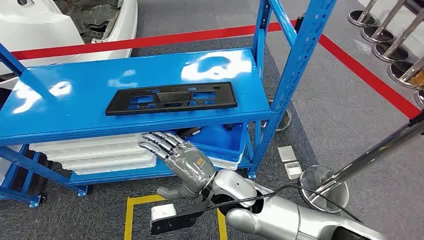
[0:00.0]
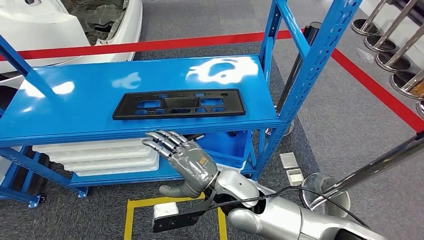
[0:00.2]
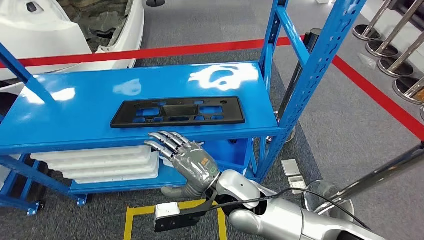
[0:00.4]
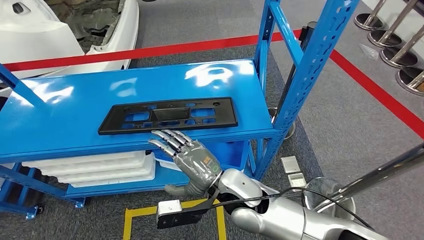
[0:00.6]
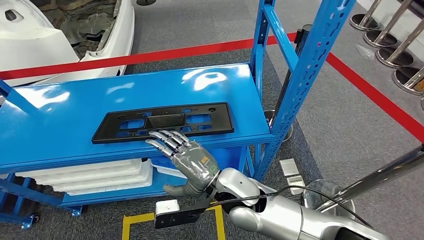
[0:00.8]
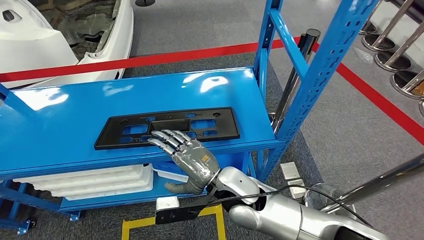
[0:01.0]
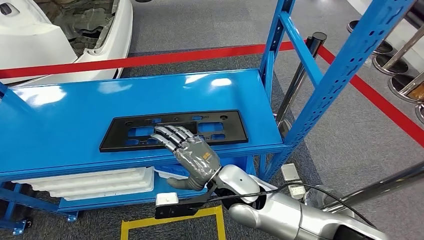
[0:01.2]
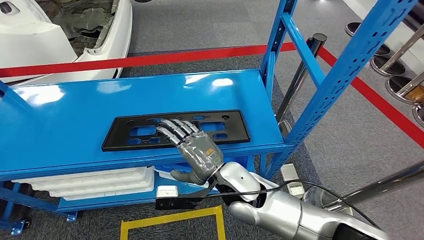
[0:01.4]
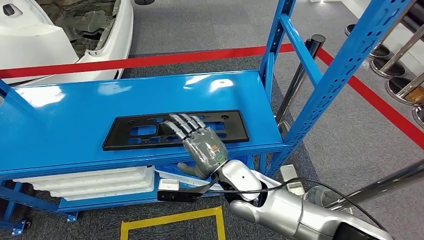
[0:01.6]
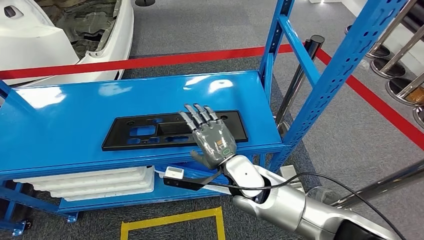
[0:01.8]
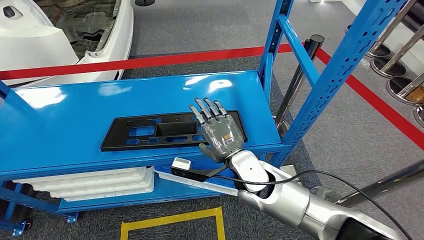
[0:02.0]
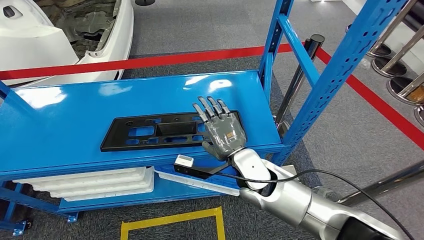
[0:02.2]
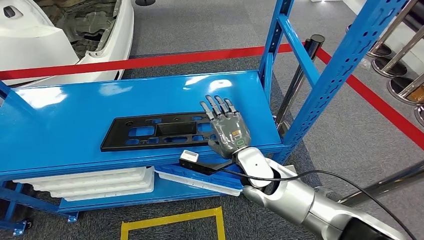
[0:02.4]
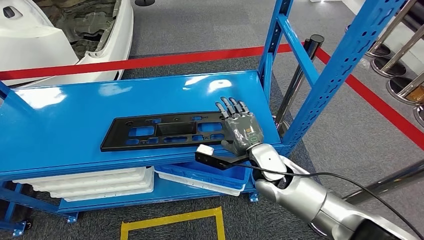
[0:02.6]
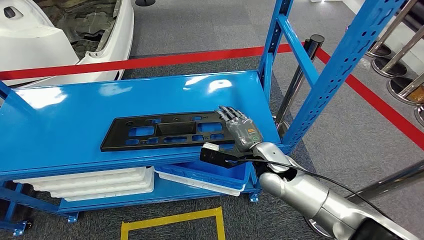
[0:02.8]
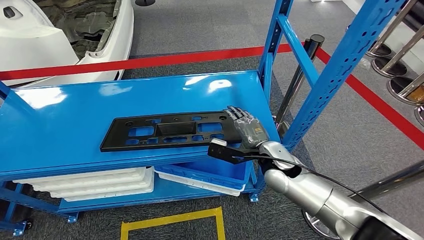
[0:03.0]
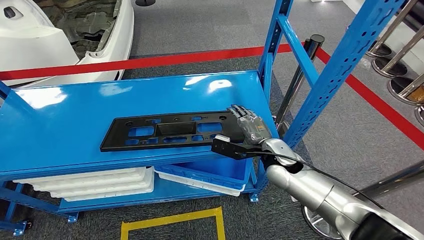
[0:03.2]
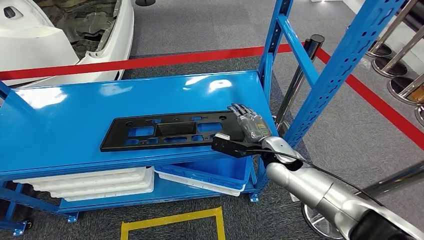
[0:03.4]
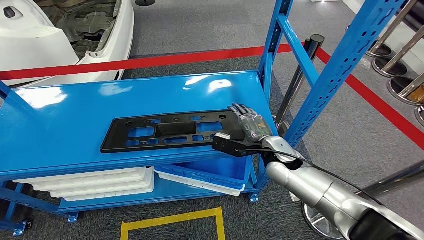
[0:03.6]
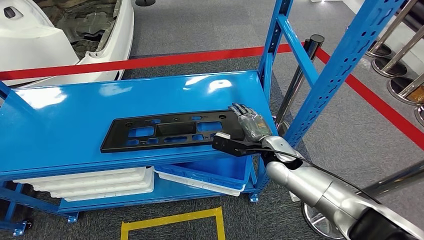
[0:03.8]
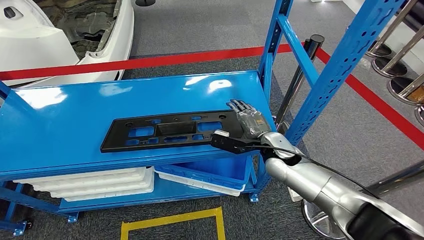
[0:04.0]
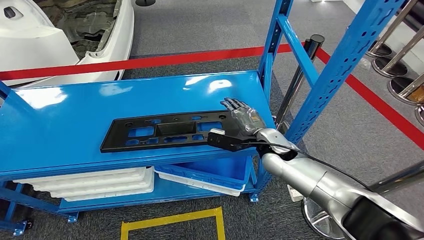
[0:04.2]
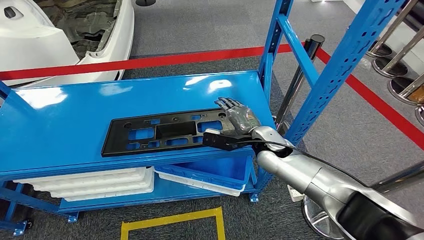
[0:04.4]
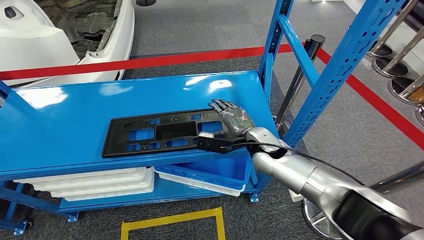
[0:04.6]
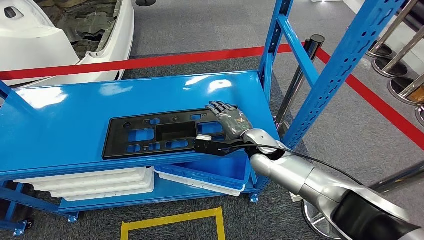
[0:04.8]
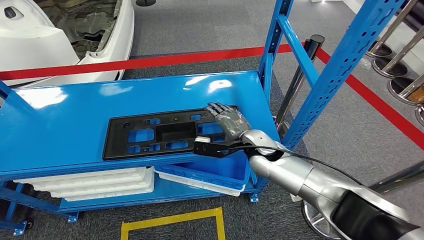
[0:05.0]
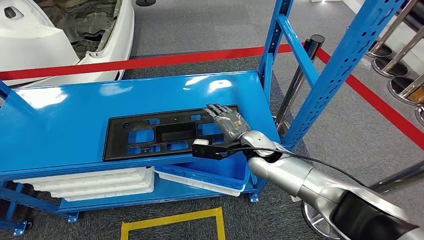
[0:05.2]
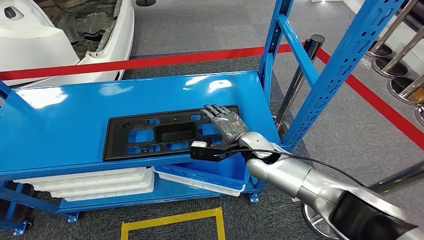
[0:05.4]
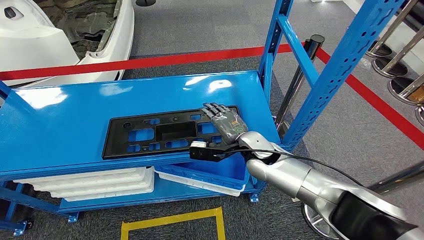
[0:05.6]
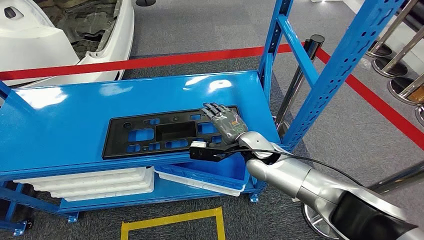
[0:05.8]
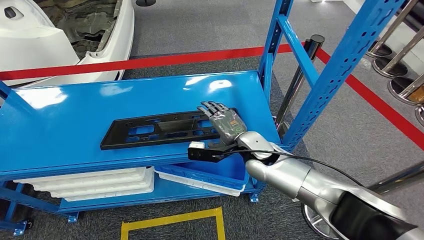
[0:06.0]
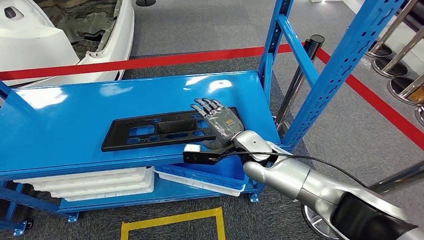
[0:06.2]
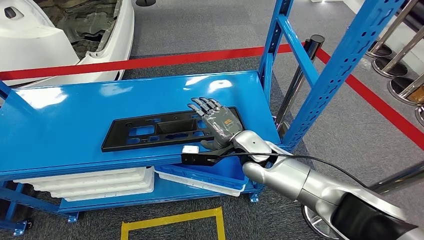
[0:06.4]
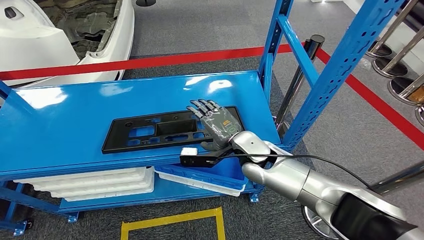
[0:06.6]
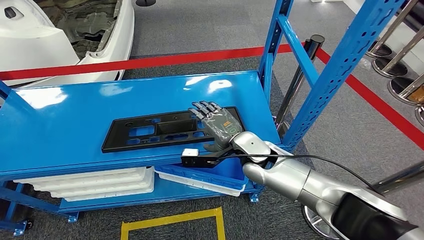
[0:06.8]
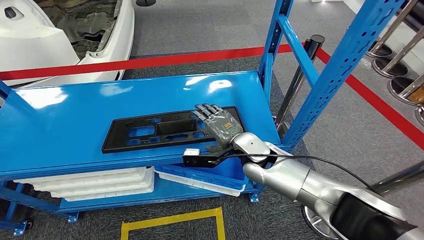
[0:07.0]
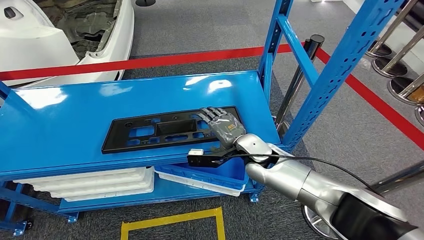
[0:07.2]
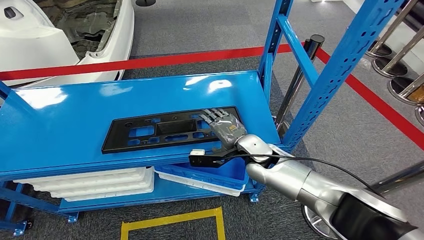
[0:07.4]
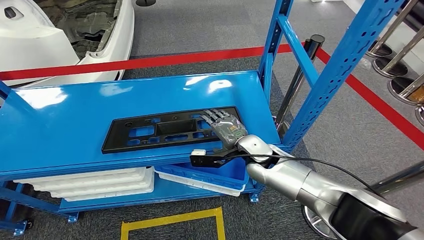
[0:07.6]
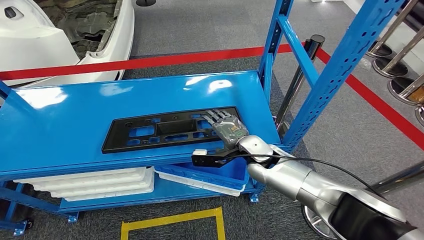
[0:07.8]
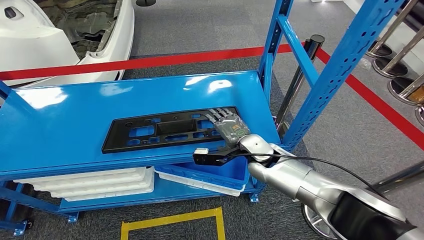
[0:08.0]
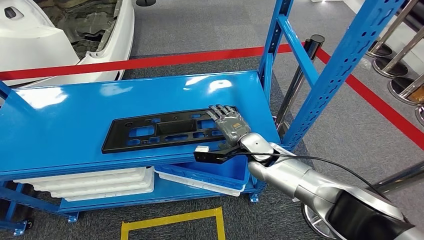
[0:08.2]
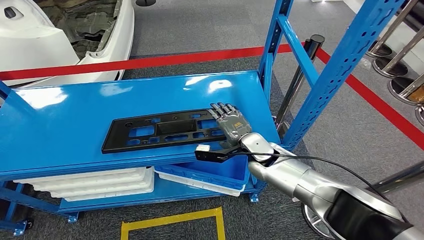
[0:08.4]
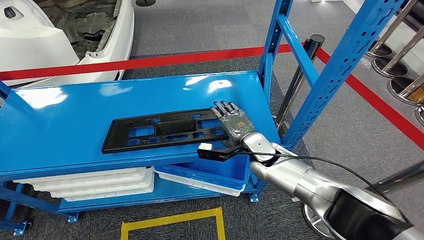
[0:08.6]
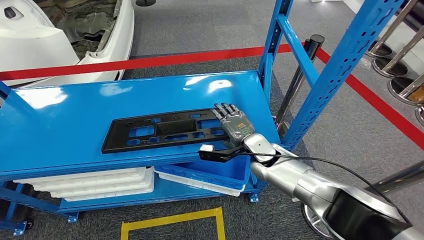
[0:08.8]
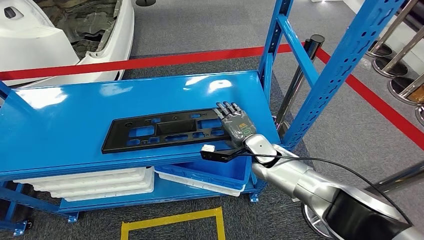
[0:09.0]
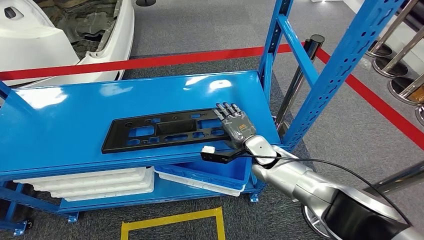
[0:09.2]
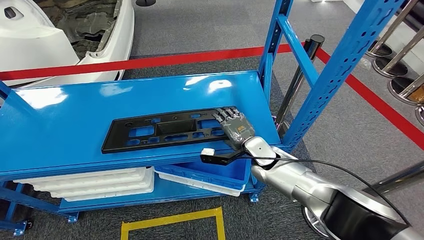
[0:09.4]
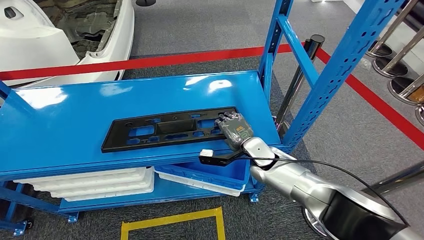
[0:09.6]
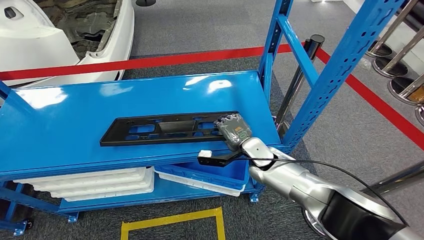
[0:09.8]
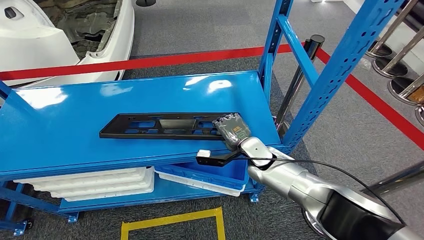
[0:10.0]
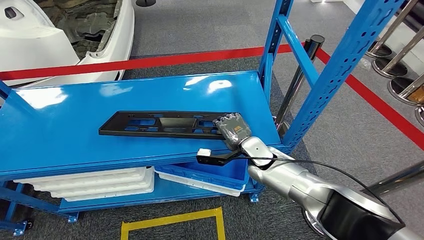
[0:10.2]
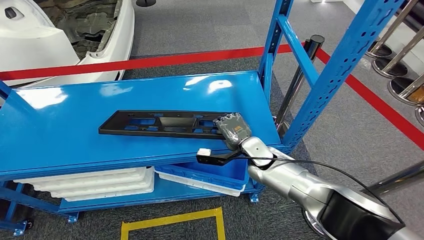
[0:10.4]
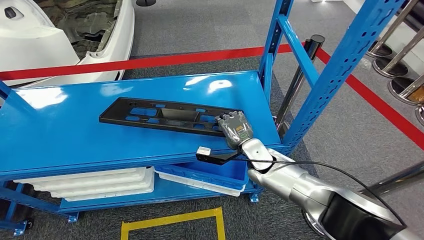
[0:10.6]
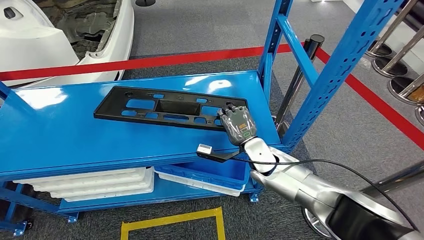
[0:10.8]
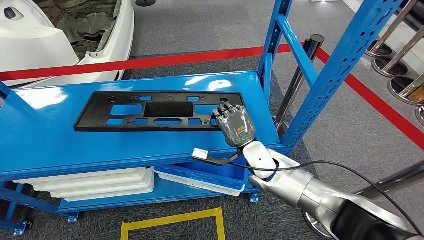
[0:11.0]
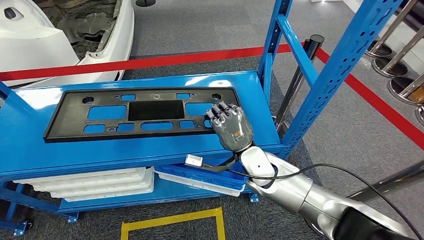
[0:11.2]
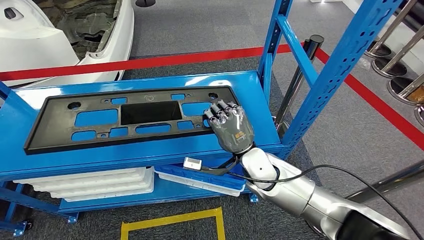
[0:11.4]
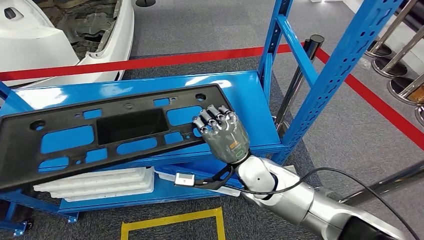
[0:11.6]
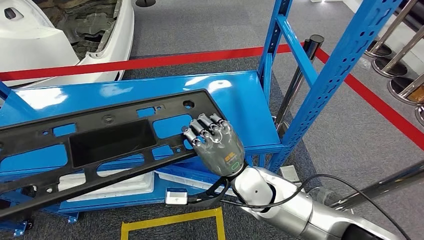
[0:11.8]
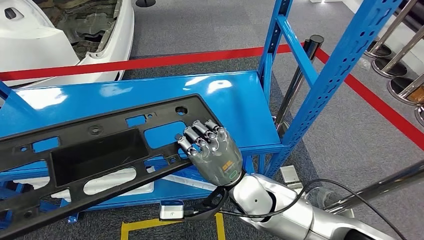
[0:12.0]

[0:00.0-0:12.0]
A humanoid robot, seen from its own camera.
0:03.0 to 0:06.0: The hands make only small movements.
0:06.0 to 0:09.0: The hands make only small movements.
0:09.0 to 0:10.4: The hands stay close to where they were, moving slightly.

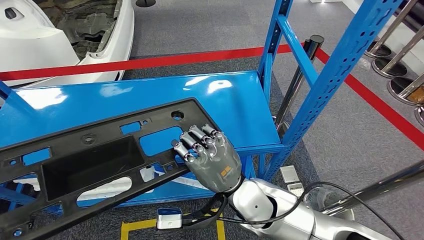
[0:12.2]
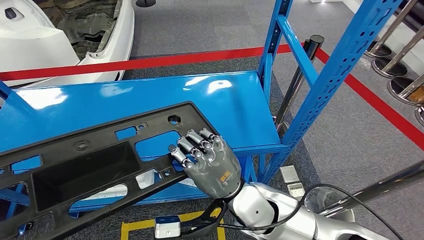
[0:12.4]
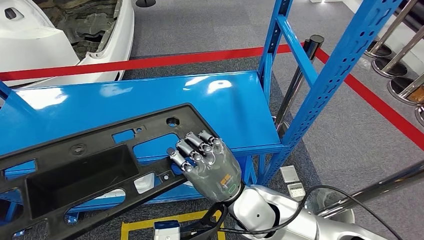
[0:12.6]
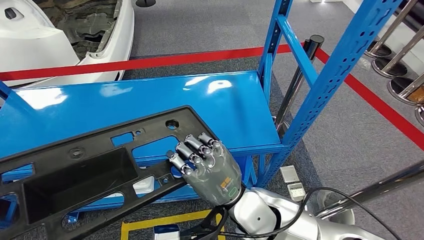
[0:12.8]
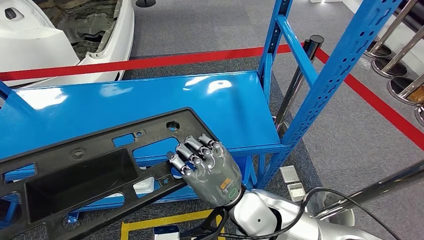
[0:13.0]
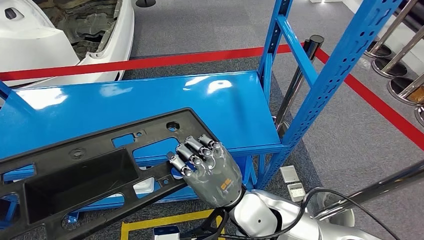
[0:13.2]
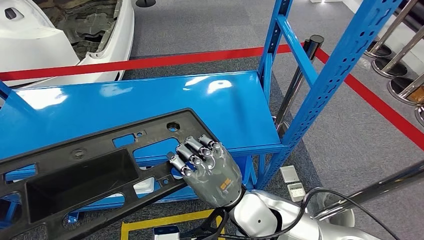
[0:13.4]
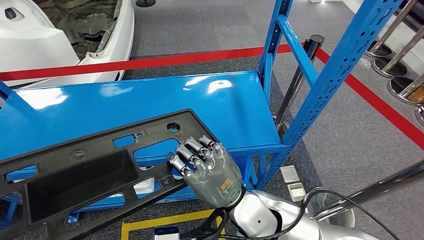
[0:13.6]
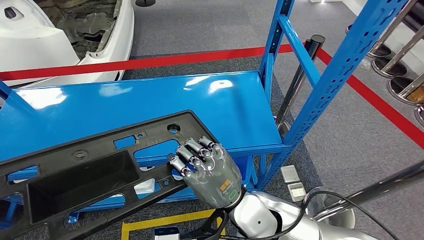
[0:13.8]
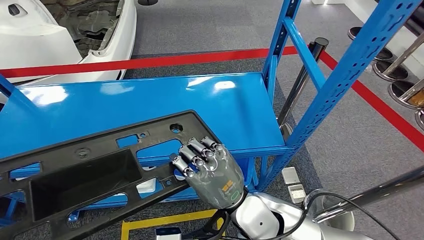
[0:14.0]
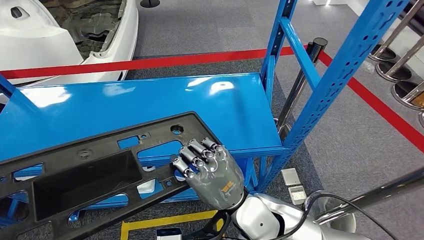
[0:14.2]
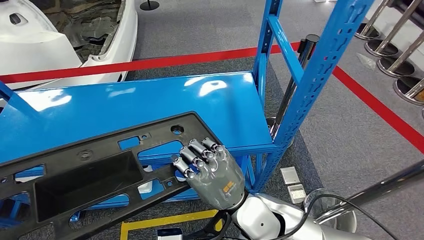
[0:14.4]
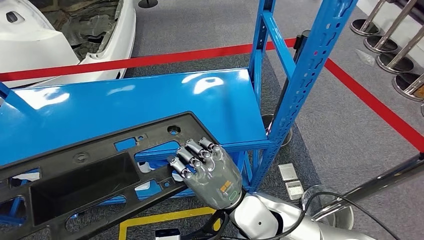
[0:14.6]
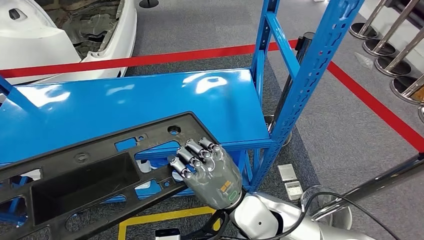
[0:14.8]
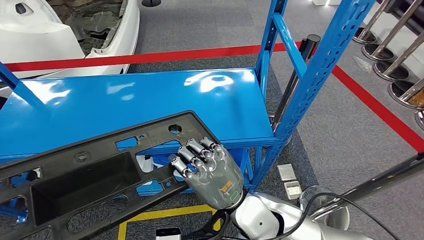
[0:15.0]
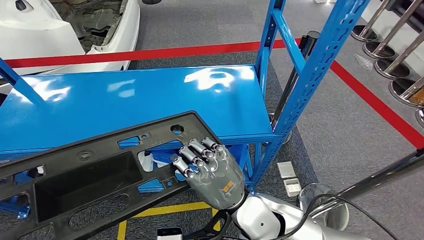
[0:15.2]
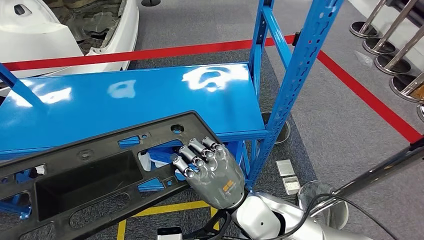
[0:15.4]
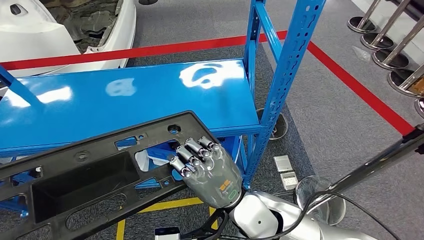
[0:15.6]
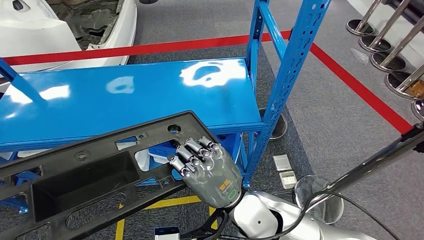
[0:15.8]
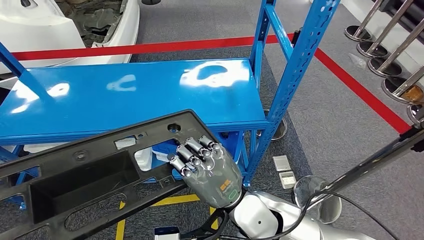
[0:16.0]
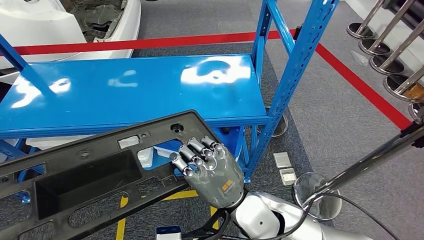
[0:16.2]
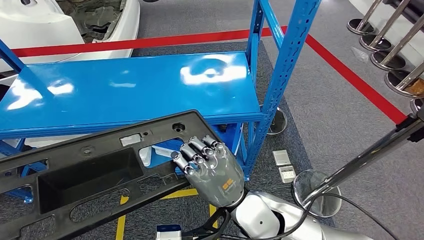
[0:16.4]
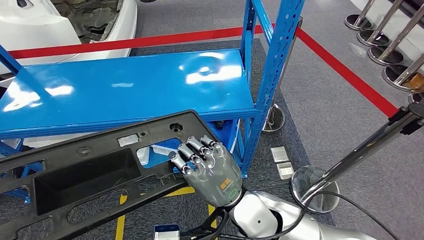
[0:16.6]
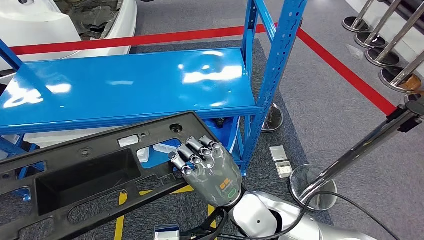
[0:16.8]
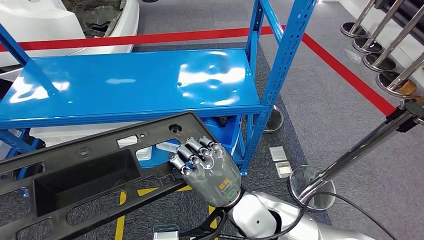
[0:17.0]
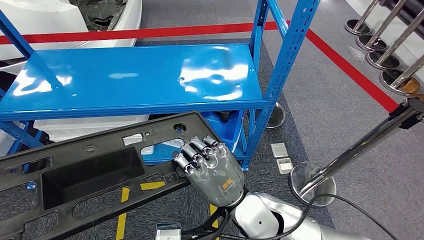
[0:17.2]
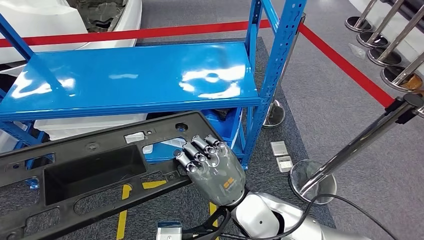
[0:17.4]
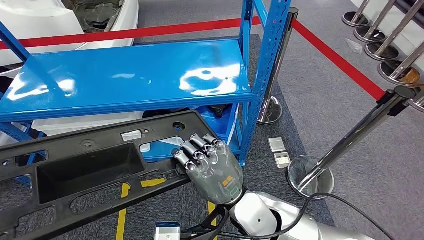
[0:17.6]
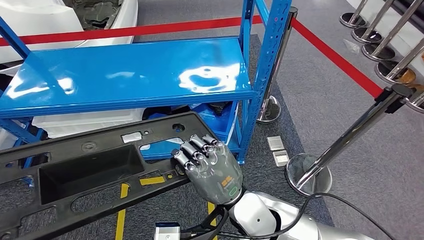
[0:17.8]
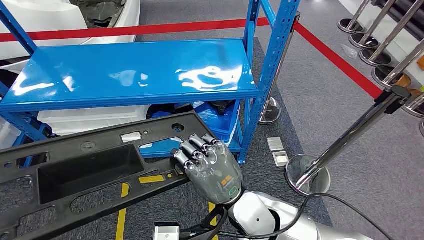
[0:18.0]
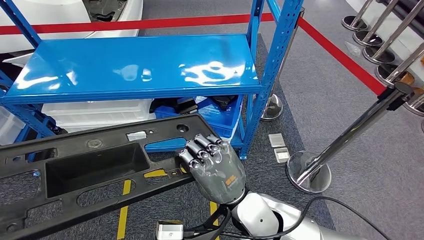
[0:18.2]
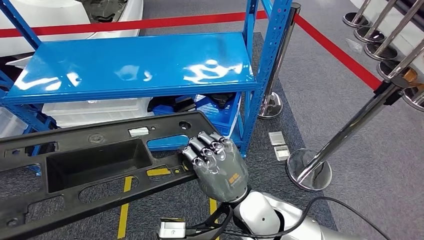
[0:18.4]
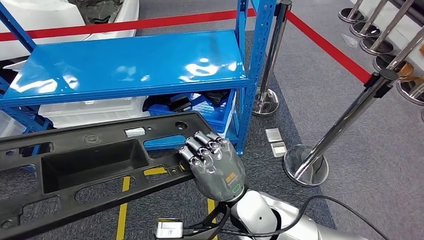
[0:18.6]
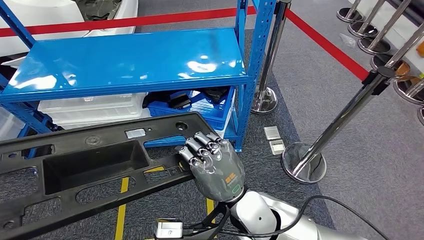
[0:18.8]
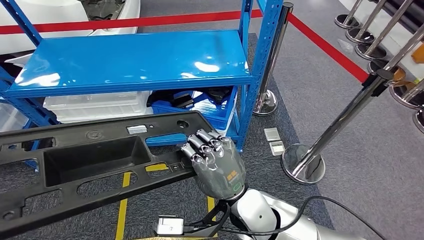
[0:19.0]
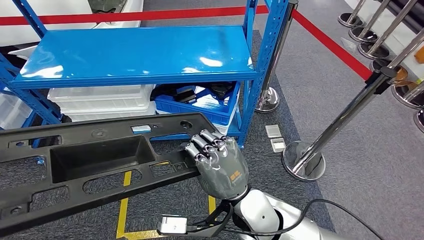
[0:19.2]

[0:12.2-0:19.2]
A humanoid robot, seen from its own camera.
Step, 0:12.2 to 0:16.8: Pick up the large material from the shelf.
0:12.2 to 0:13.6: The hands stay close to where they were, moving slightly.
